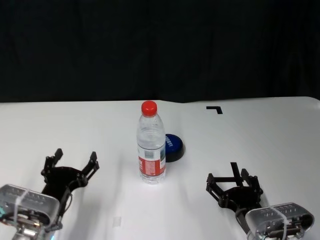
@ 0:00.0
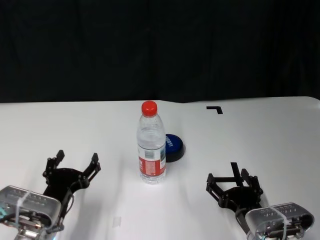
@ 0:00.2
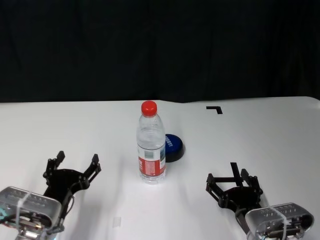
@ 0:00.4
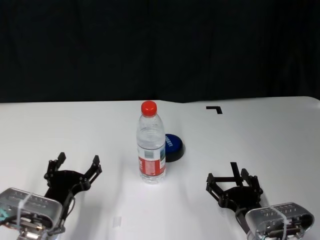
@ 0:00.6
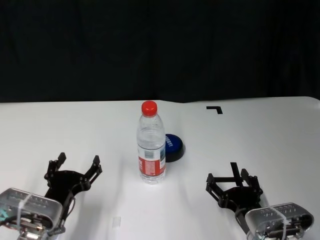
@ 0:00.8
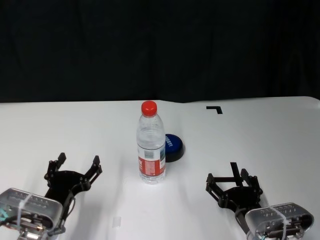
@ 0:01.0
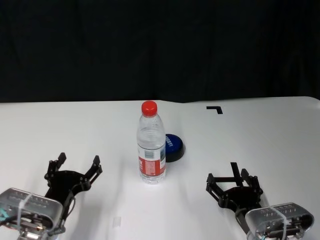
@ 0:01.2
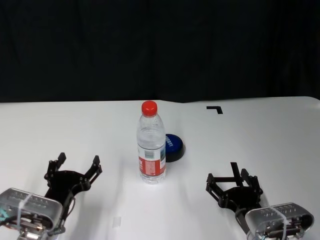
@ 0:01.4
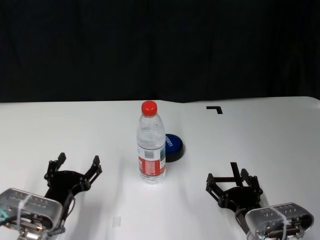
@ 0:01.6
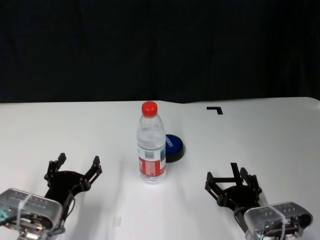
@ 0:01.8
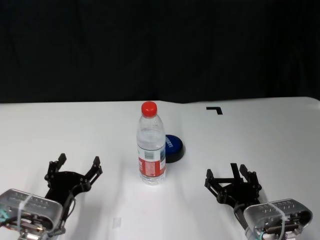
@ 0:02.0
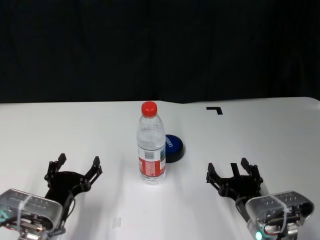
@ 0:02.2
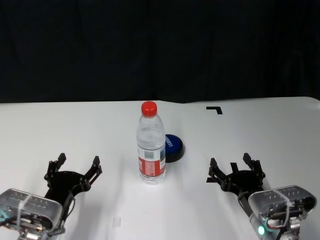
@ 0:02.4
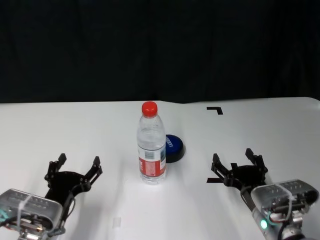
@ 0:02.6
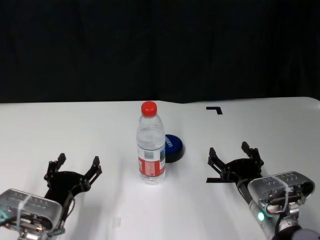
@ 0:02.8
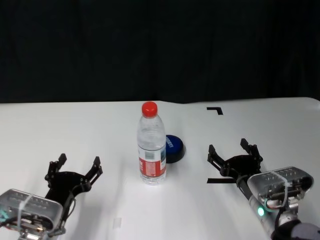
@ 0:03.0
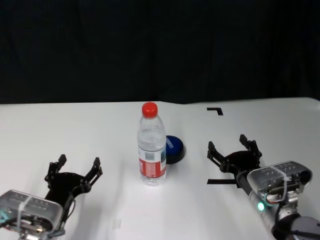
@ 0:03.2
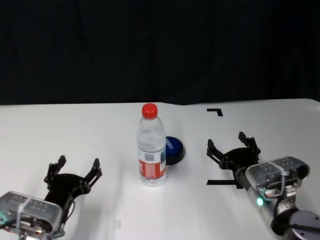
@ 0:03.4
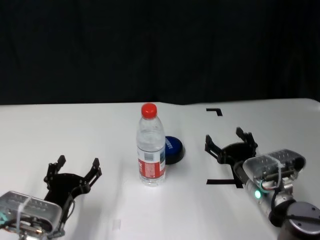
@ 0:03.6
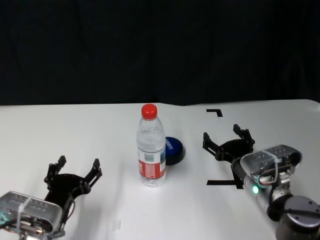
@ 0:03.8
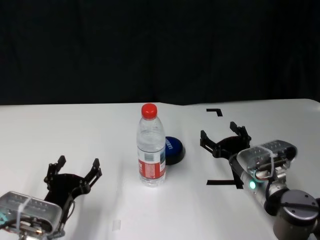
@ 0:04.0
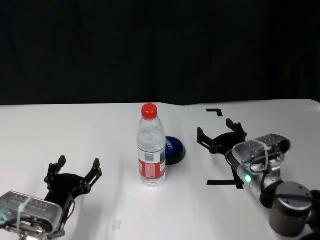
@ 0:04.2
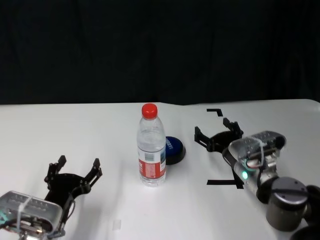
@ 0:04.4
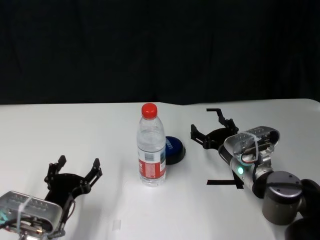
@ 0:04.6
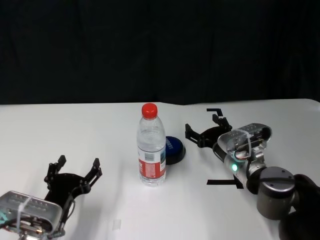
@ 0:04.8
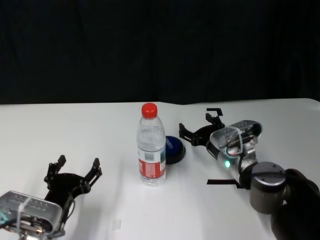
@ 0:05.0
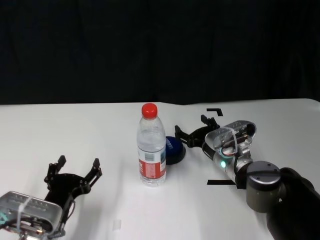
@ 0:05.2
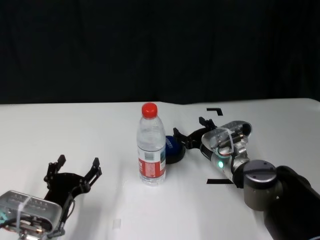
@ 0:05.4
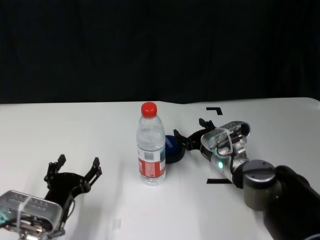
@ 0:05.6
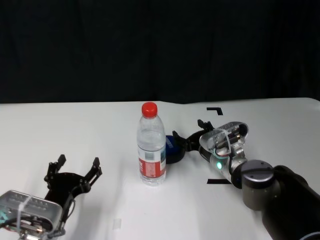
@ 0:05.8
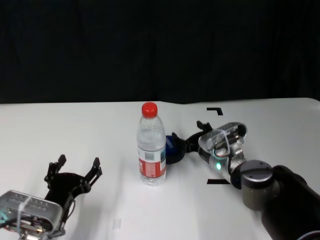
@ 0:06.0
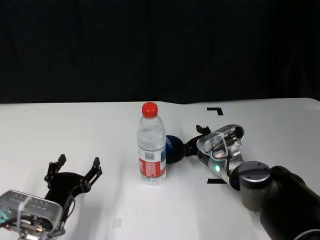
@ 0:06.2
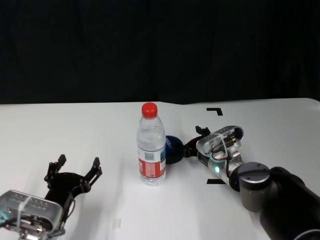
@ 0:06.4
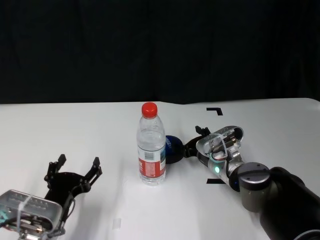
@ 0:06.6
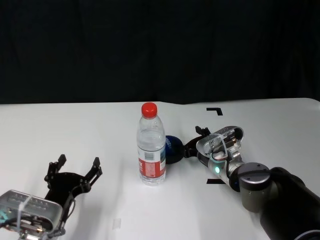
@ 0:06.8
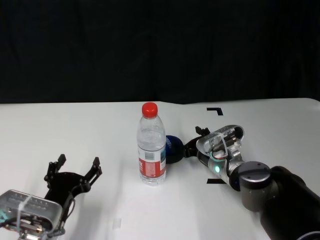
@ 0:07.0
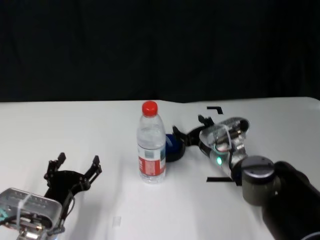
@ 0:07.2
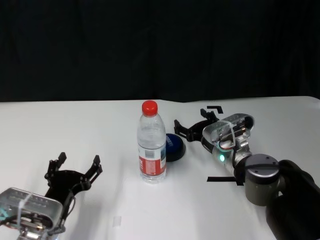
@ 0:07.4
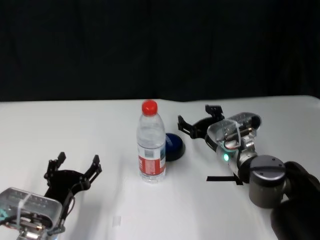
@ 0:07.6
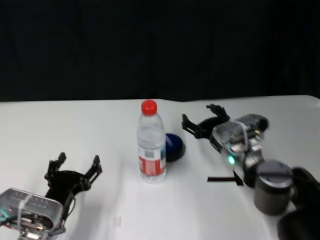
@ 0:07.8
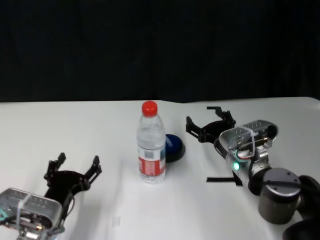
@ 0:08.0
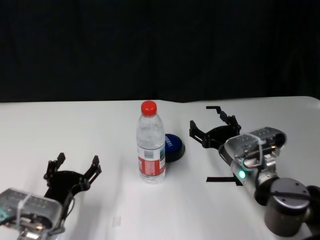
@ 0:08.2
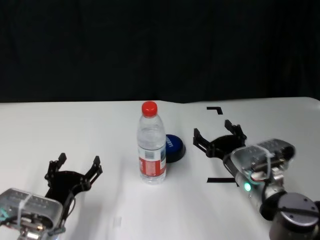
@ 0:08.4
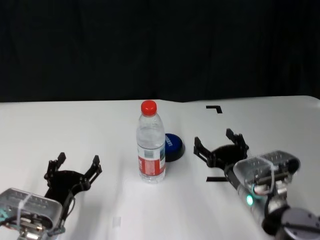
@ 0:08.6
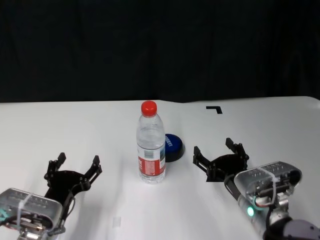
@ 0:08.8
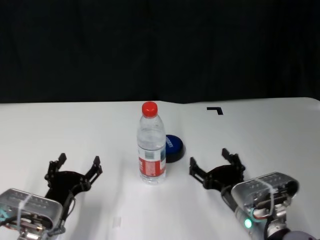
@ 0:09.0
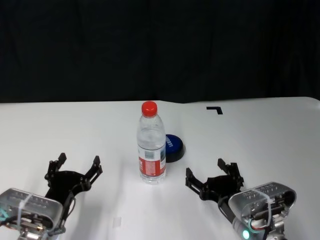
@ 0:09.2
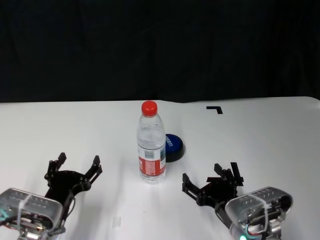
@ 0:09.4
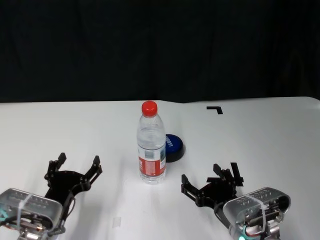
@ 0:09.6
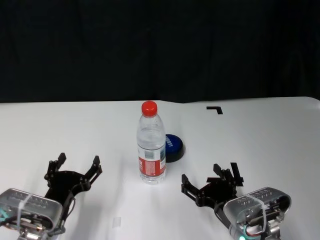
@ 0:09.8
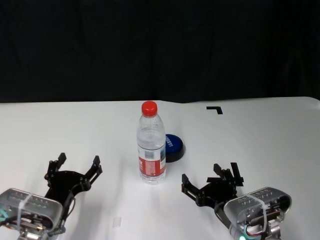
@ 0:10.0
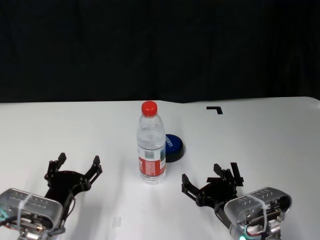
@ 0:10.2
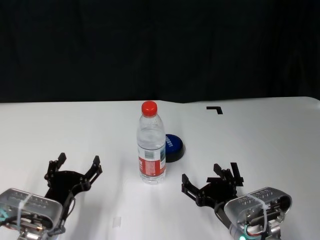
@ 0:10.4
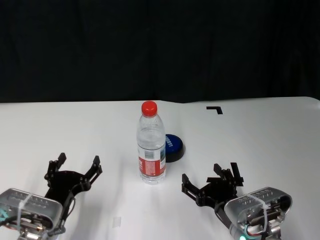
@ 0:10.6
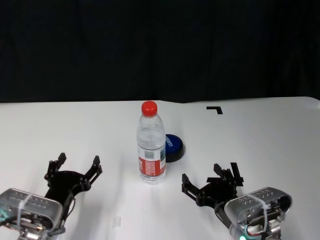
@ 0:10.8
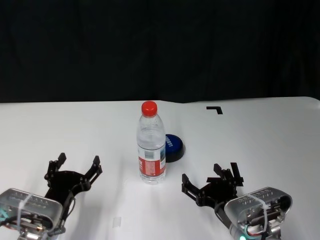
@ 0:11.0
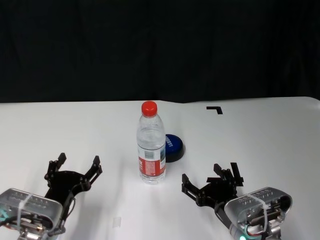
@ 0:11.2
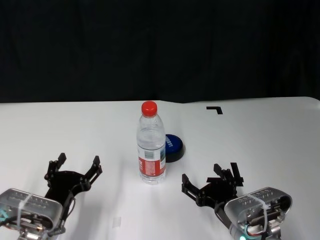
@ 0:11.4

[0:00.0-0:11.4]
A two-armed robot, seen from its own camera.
Task of the whole recording: after avoiding the water bottle on the table, press the button.
Step, 0:00.0 to 0:07.0: Press the button blocked by the bottle with right gripper.
